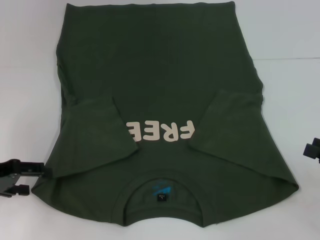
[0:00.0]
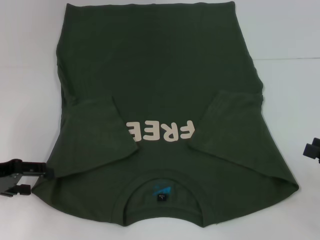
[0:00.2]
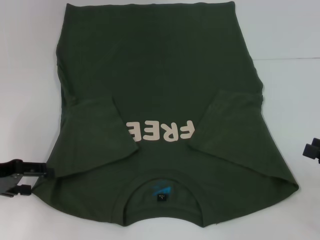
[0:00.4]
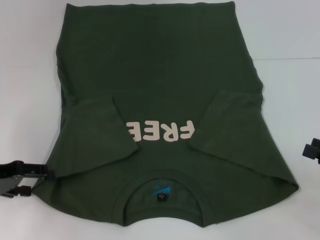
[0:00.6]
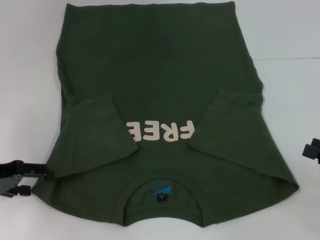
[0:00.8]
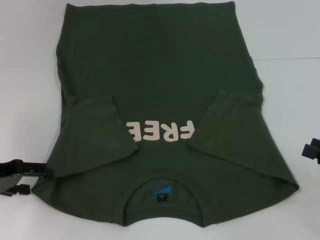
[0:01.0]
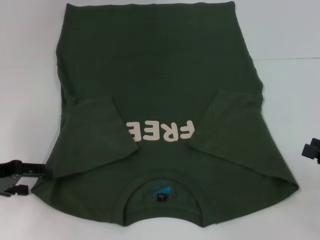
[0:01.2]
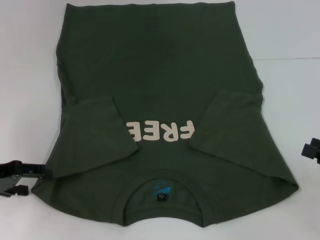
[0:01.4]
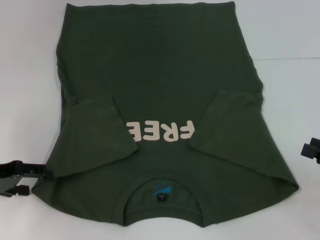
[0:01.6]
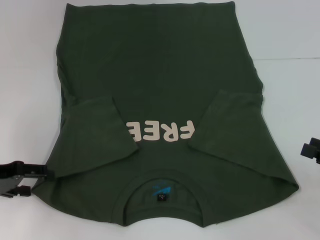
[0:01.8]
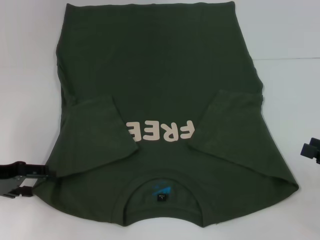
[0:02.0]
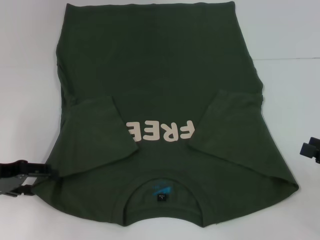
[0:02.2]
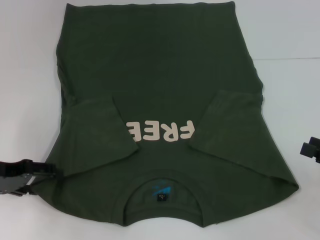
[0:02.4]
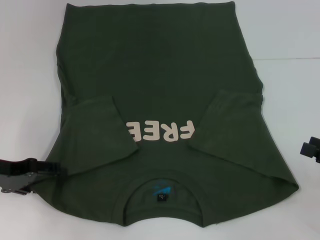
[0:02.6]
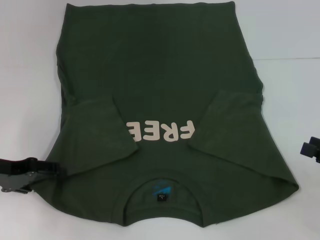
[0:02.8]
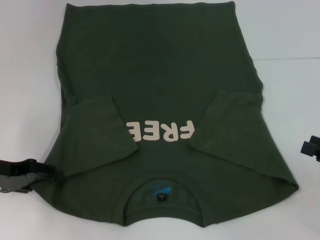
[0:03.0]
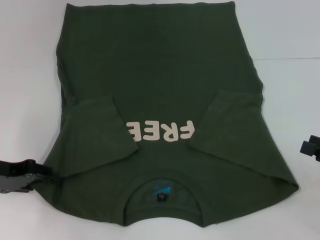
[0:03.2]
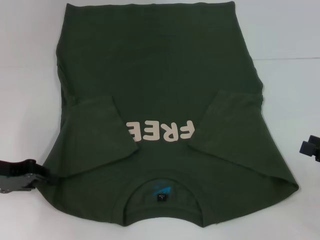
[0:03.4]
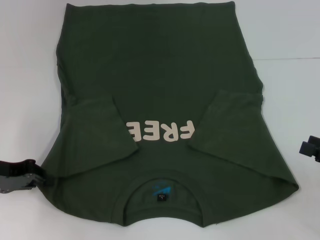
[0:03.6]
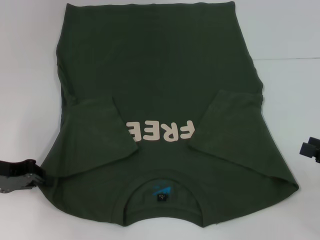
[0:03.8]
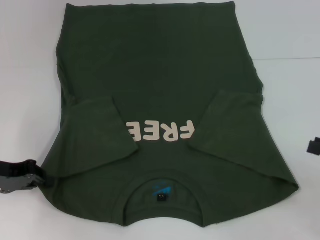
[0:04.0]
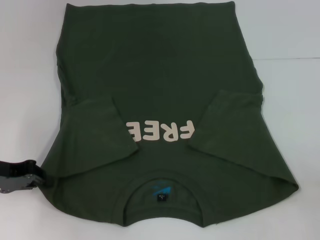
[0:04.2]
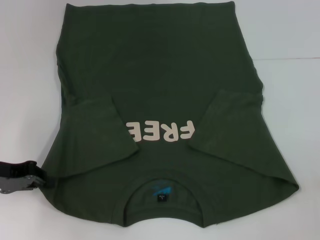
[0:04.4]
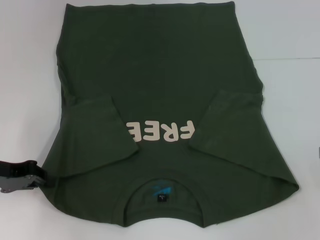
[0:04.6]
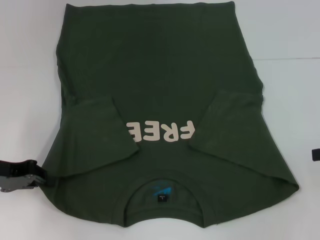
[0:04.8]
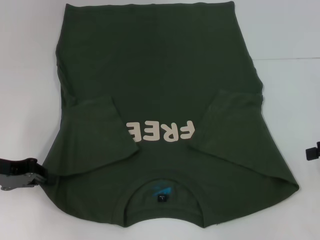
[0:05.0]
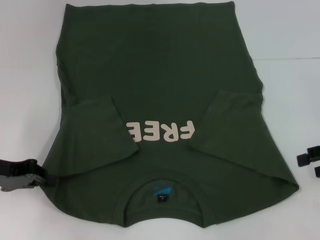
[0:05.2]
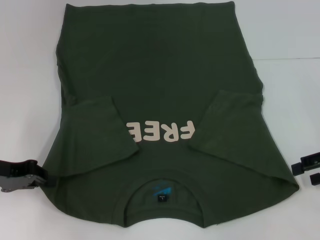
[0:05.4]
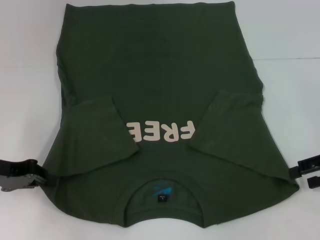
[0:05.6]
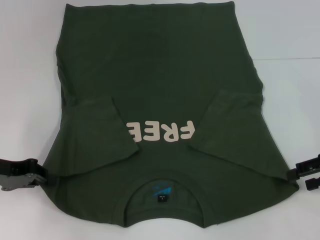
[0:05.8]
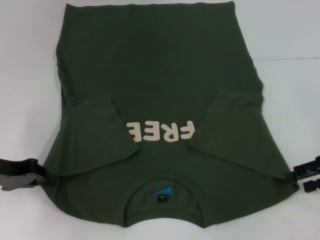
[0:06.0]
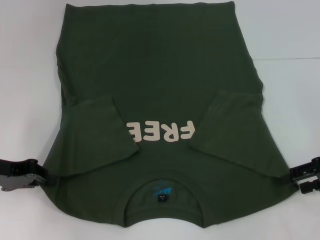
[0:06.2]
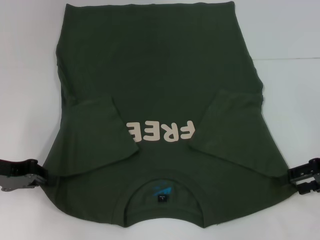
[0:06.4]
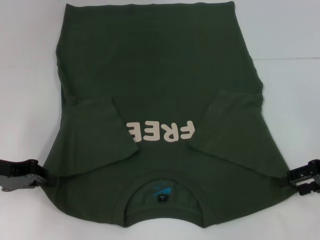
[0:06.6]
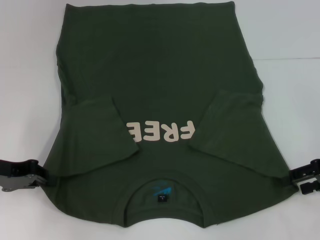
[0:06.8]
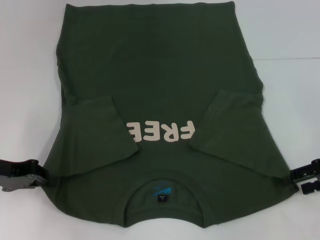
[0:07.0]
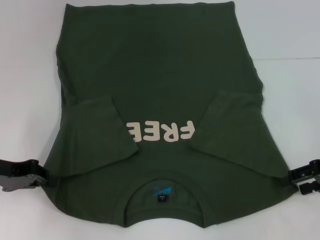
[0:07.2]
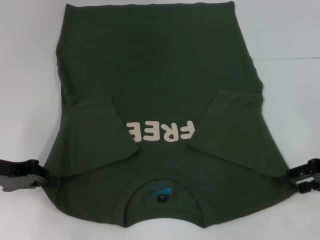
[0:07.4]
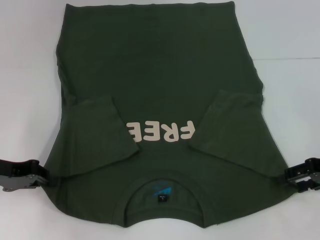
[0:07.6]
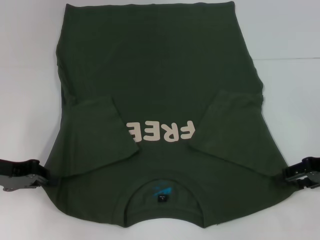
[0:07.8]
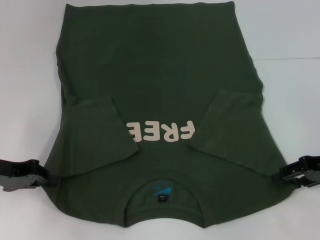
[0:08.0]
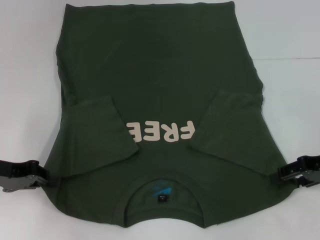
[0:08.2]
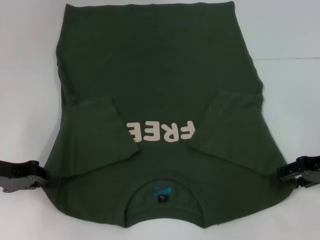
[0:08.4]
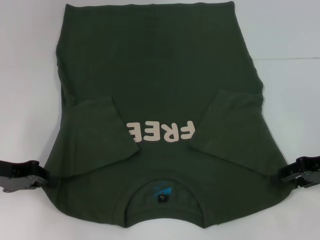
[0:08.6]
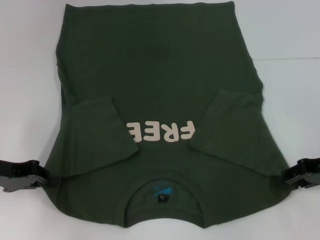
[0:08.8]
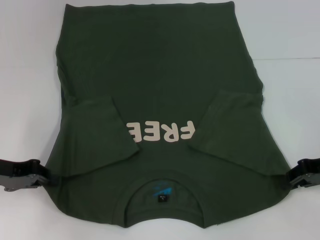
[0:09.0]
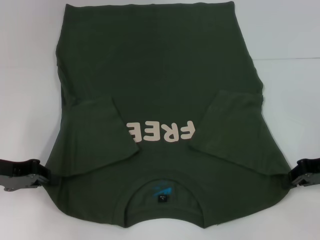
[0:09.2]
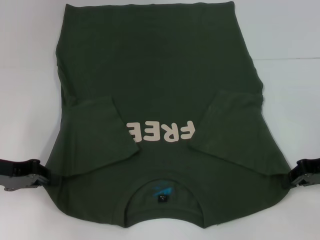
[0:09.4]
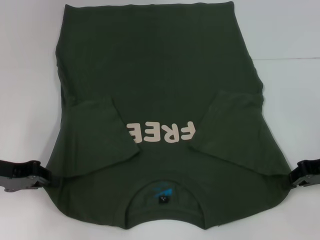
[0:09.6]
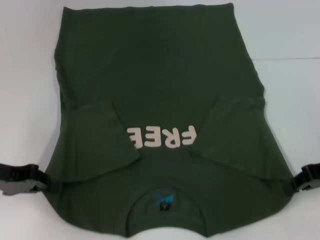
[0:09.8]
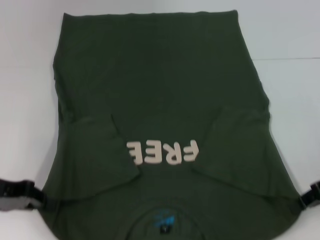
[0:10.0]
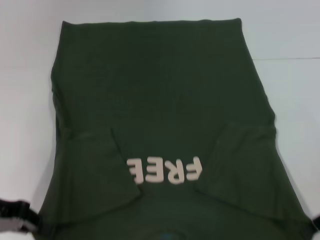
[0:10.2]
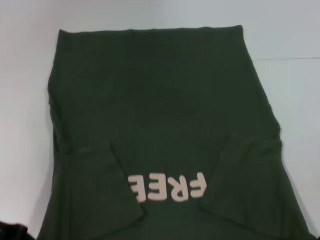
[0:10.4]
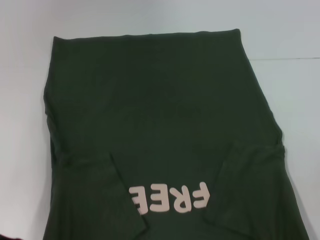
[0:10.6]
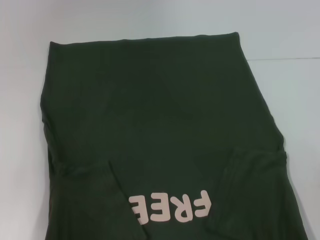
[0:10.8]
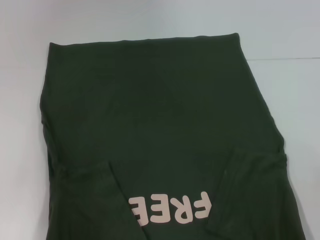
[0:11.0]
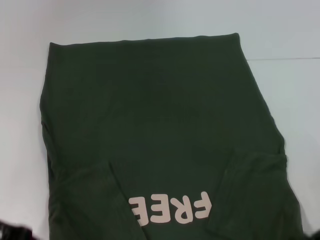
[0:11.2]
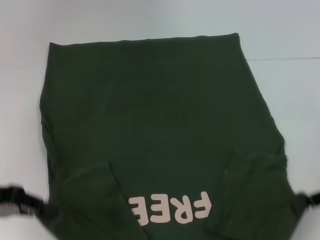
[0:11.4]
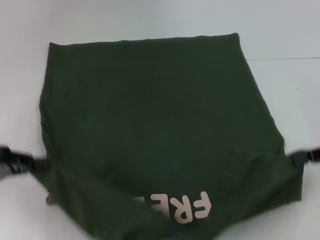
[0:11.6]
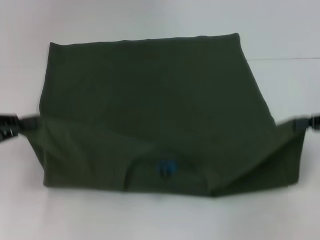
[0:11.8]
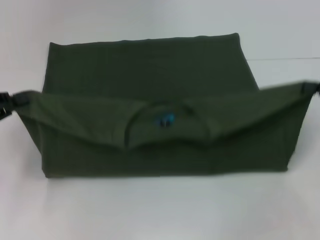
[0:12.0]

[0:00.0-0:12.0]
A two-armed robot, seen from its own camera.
Step, 4.2 to 9.2 s: Grab the bottom right corner with your right hand.
0.0 to 1.6 s: Both grippers stay put.
1.6 to 3.0 s: The grippers move only a little.
3.0 to 4.4 s: The left gripper closes its fingers.
4.4 to 6.0 s: The right gripper goes roughly 5 cm to the left.
6.0 to 7.6 s: The grippers move only a little.
7.6 to 9.0 s: The right gripper closes.
9.0 to 10.4 s: The right gripper closes.
10.4 to 12.0 s: The left gripper changes place by some 5 cm, while the right gripper shifts some 5 cm to the right.

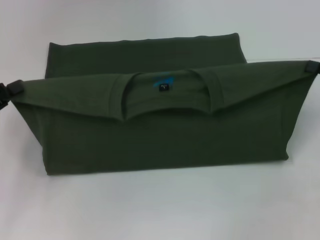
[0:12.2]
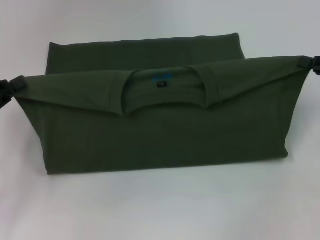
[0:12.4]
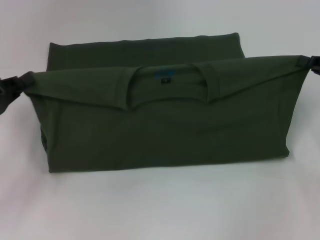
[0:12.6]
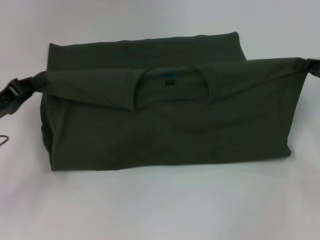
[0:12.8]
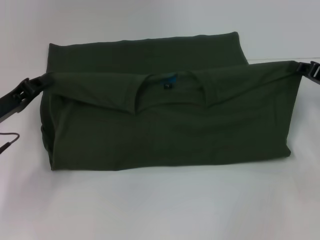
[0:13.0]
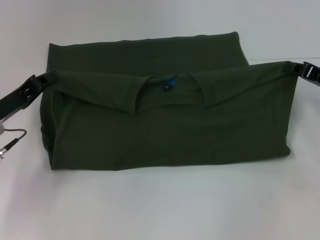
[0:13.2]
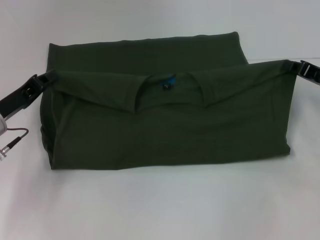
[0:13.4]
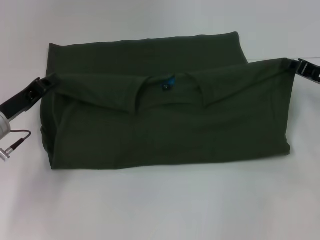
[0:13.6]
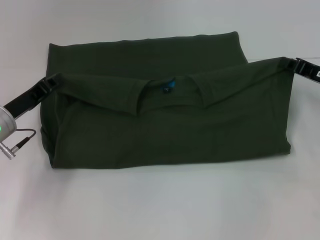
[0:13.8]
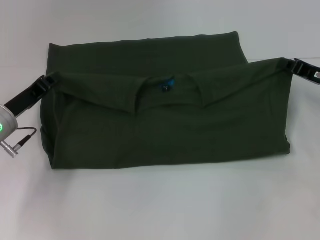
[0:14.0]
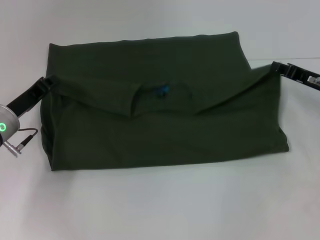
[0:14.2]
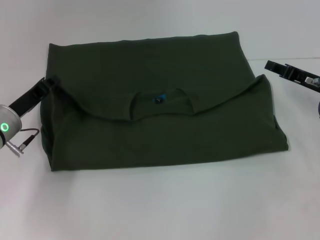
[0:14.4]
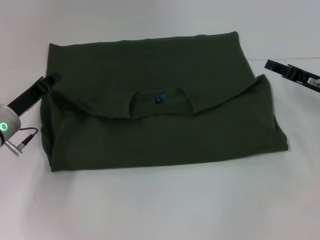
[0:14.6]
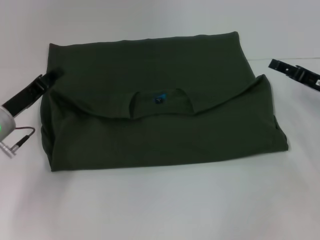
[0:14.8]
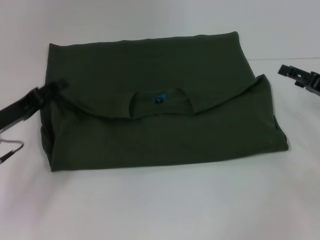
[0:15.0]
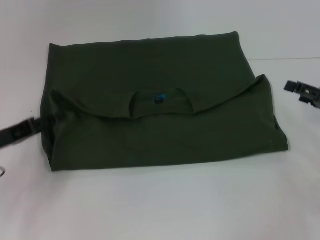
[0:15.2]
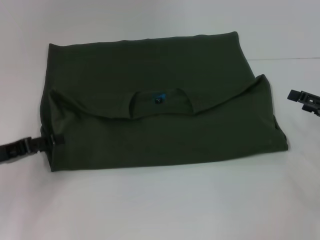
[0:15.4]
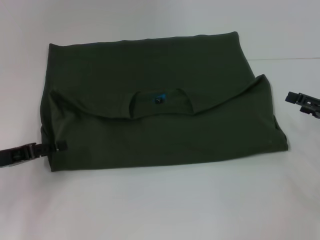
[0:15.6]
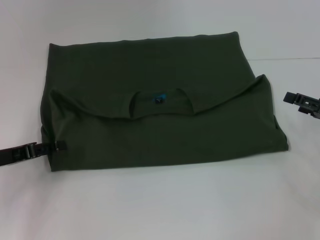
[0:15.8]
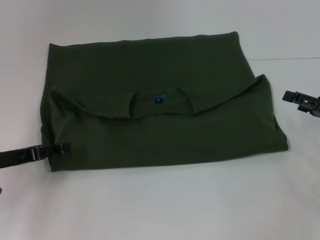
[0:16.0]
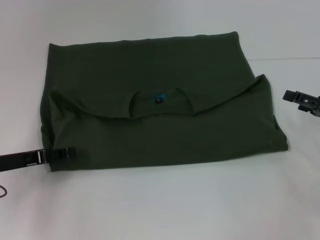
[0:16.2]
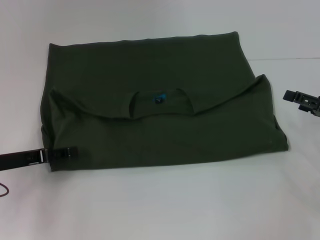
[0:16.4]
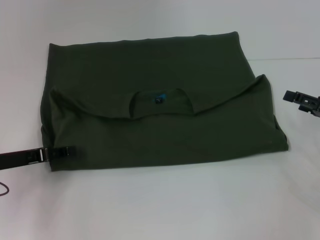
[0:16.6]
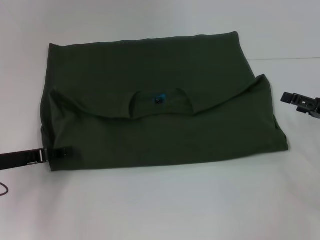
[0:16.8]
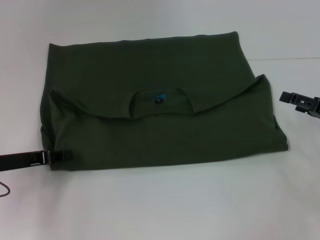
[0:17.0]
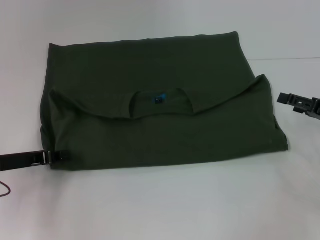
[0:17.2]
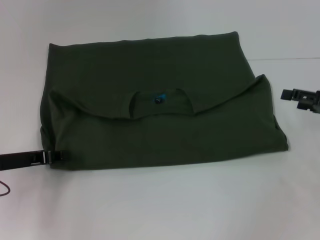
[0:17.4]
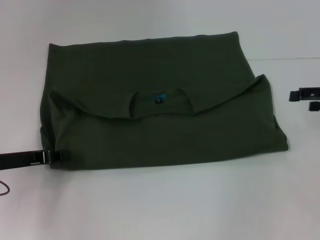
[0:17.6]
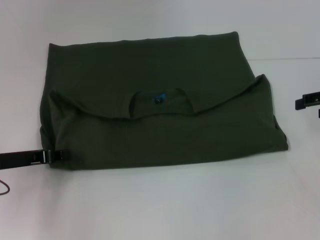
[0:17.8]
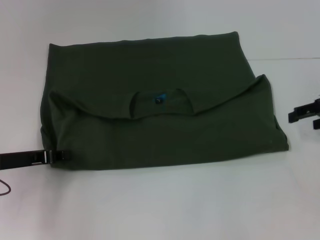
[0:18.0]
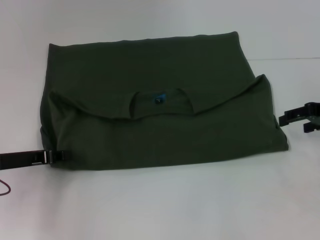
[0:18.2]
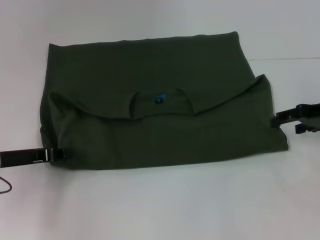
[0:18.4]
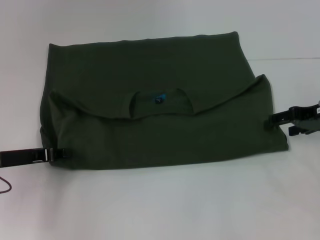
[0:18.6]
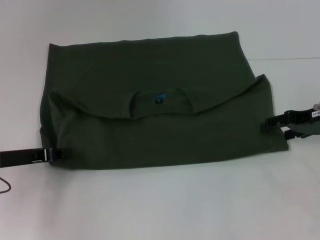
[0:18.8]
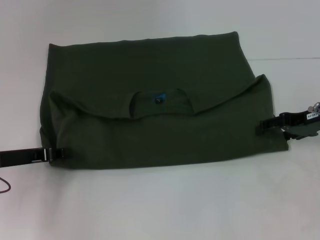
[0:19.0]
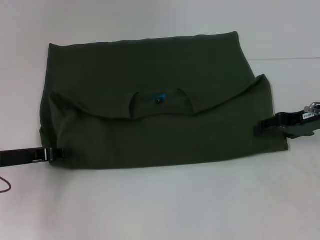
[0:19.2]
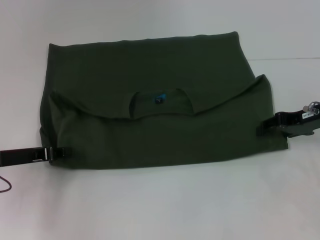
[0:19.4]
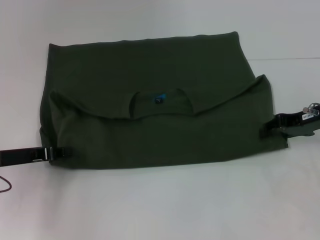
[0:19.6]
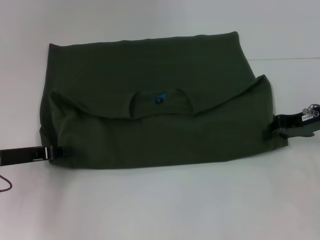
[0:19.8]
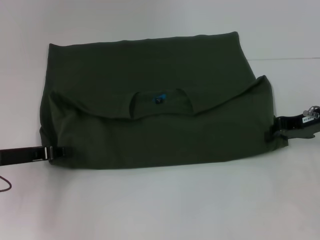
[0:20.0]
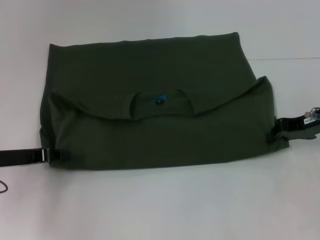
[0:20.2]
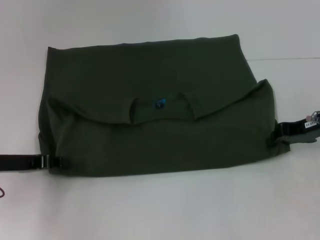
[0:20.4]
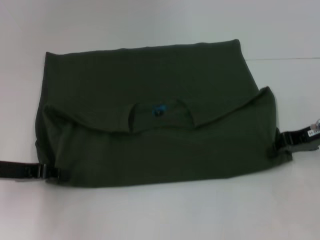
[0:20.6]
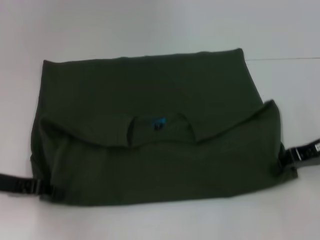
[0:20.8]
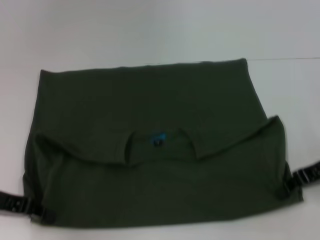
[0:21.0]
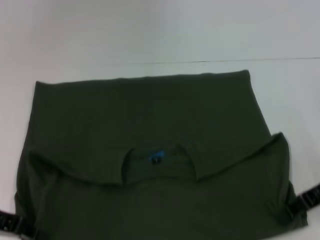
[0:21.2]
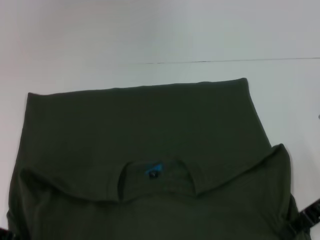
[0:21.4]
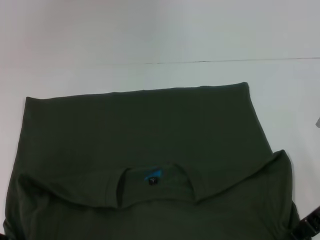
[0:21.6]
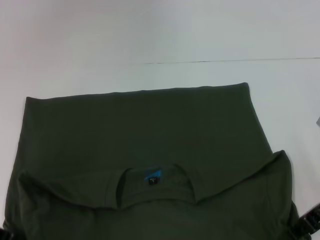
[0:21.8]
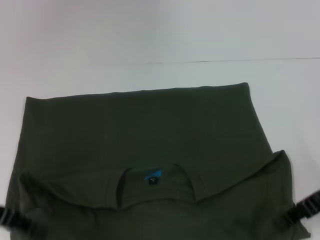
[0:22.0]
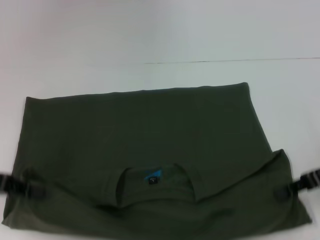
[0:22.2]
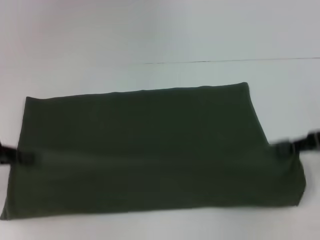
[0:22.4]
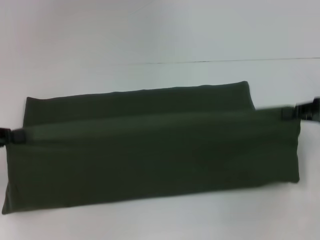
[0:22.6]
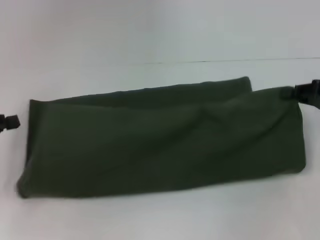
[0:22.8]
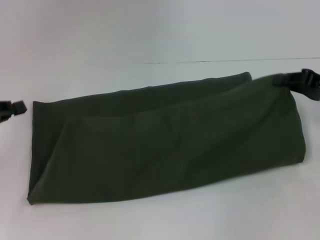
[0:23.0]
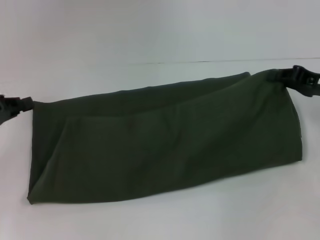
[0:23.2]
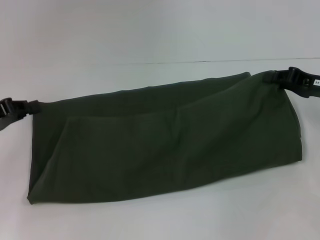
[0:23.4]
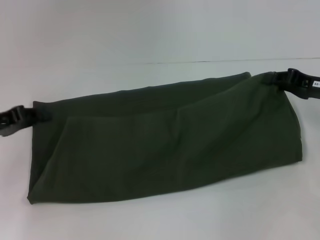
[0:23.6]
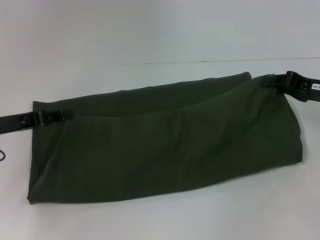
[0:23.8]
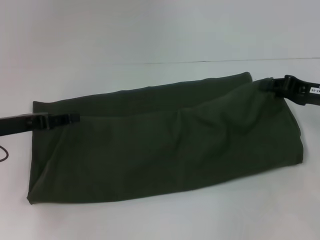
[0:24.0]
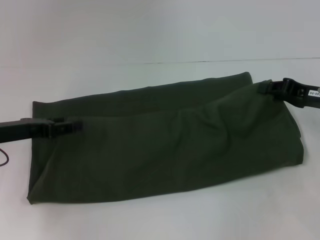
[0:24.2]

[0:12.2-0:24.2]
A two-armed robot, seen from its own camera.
Step, 12.2 to 14.8 s: Fold the clothes with your left hand.
Step, 12.2 to 14.8 s: Fold the clothes with your right hand.
Step, 15.0 to 21.8 s: Pull the clothes with your left hand.
Step, 15.0 to 21.8 s: Pull the clothes with your right hand.
12.2 to 13.8 s: The right gripper shifts some 5 cm to the left. The left gripper goes about 10 cm to the right, forward and downward.
13.8 to 15.2 s: The left gripper moves about 5 cm, and opens. The right gripper shifts approximately 5 cm backward, and opens up.
15.2 to 16.6 s: The grippers stay close to where they were, moving slightly.
16.6 to 18.2 s: The right gripper is displaced upward and forward by roughly 10 cm; the left gripper closes up.
18.2 to 19.8 s: The right gripper changes place by about 5 cm, and closes its fingers.
19.8 to 21.2 s: The right gripper goes some 5 cm backward, and closes its fingers; the left gripper moves about 5 cm.
21.2 to 22.6 s: The left gripper shifts about 5 cm to the left; the right gripper changes place by roughly 5 cm.
22.6 to 24.2 s: The left gripper heads to the right, covering roughly 5 cm, and opens up. Meanwhile the right gripper ends up about 5 cm from where it was.
